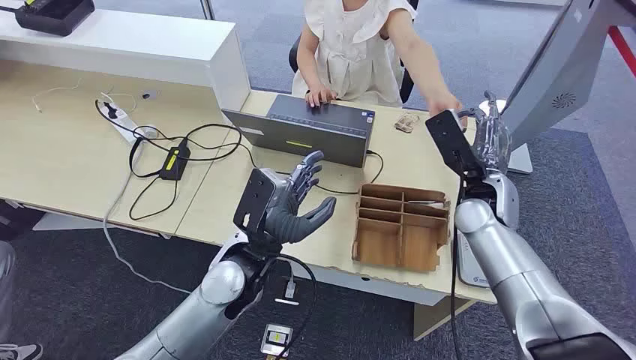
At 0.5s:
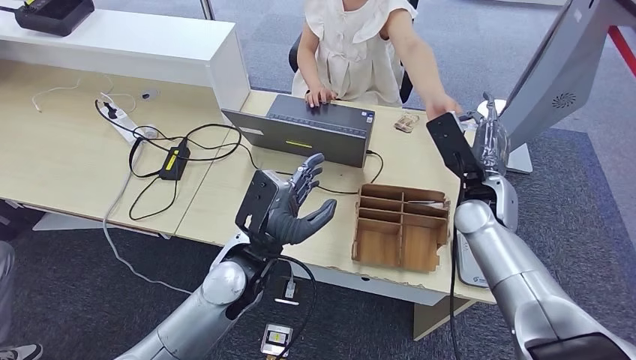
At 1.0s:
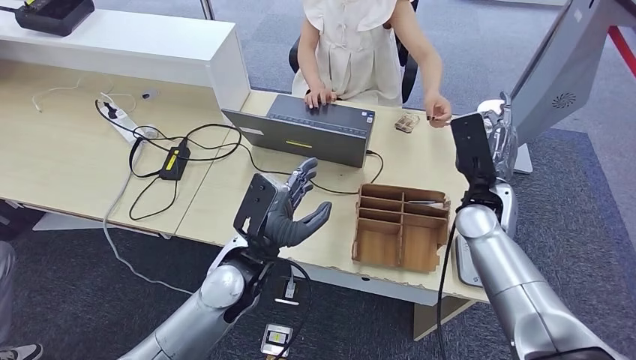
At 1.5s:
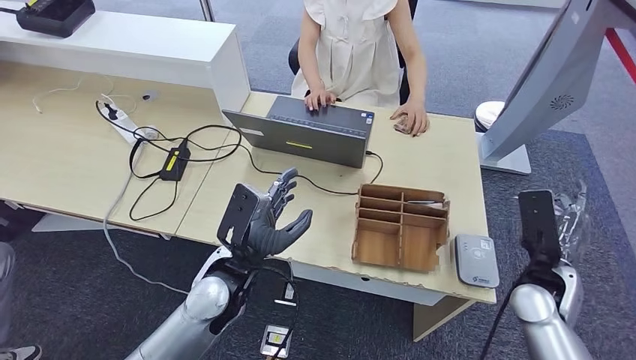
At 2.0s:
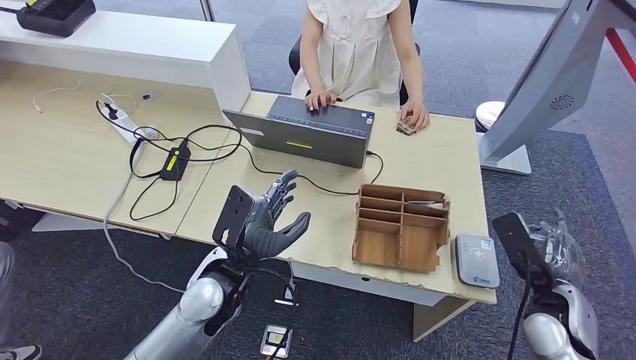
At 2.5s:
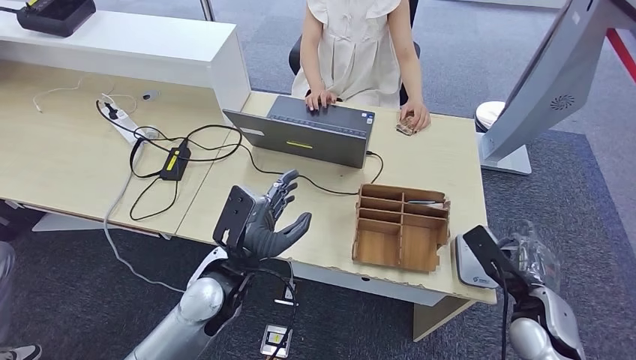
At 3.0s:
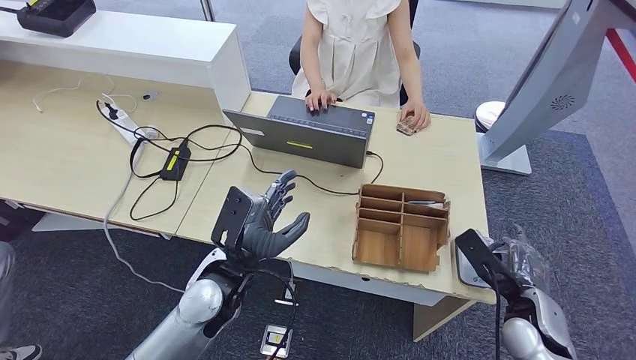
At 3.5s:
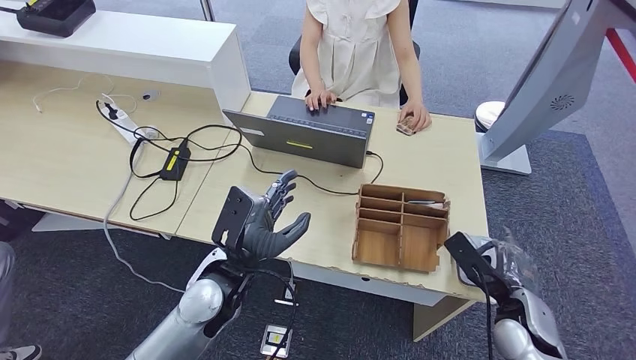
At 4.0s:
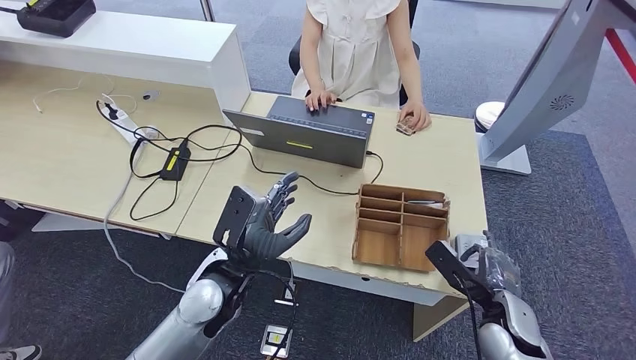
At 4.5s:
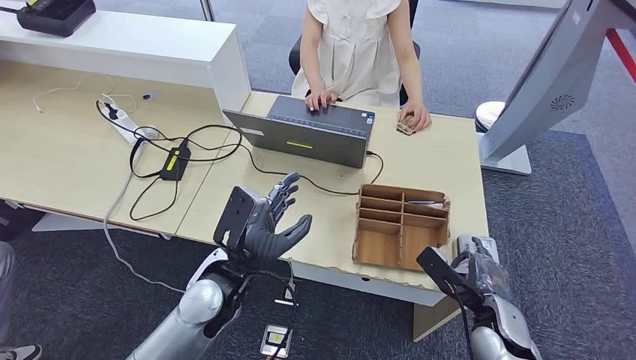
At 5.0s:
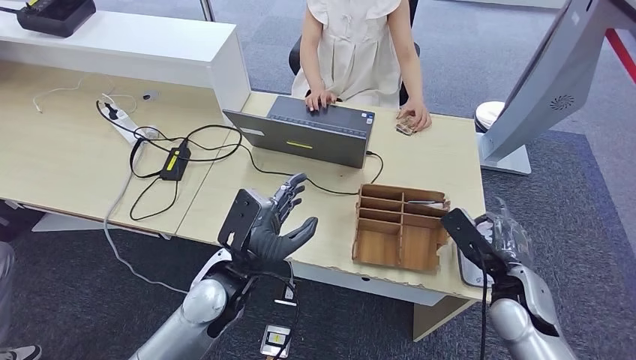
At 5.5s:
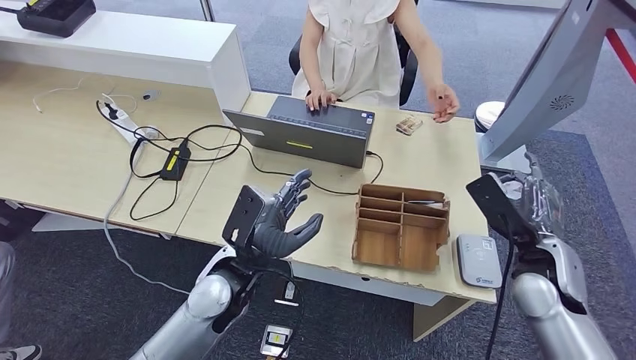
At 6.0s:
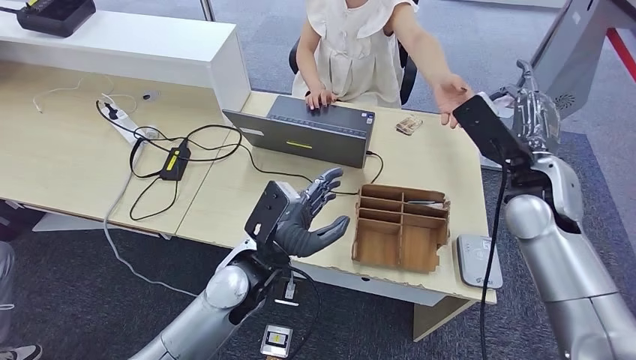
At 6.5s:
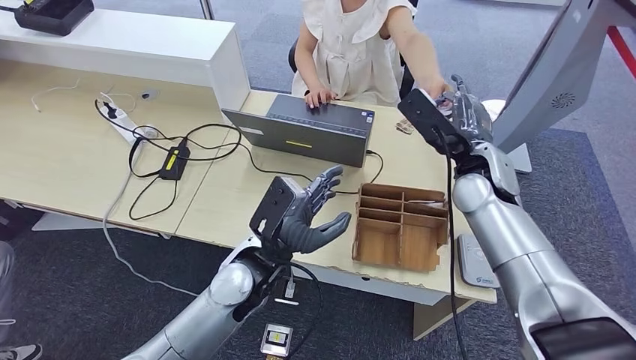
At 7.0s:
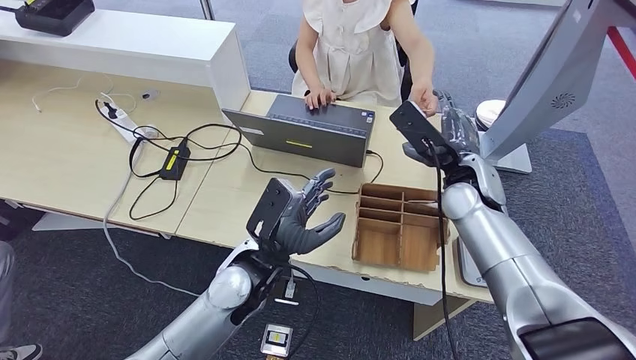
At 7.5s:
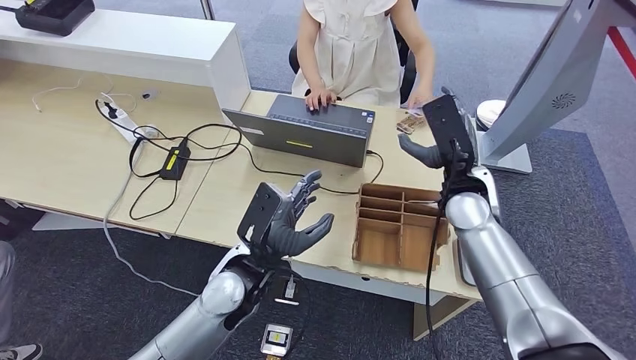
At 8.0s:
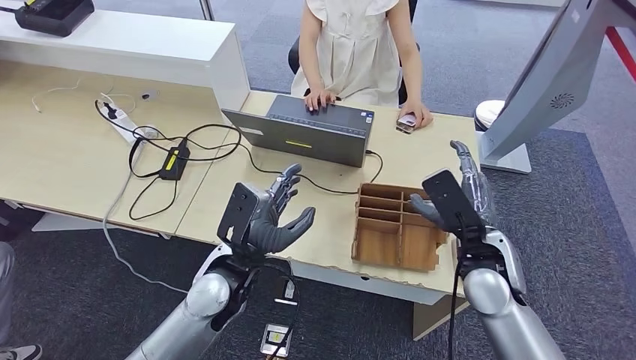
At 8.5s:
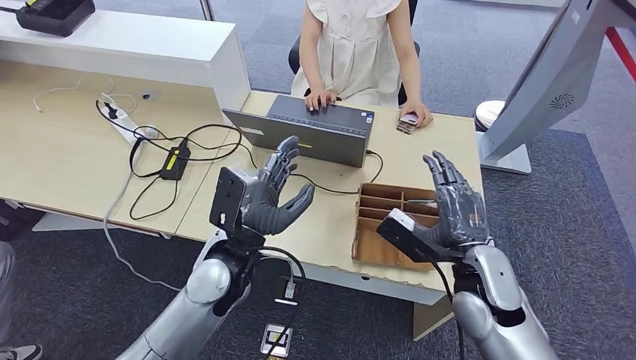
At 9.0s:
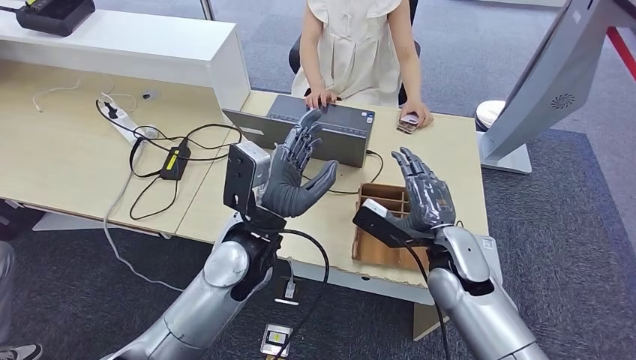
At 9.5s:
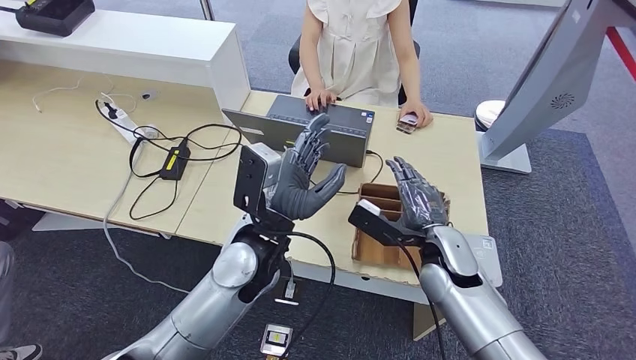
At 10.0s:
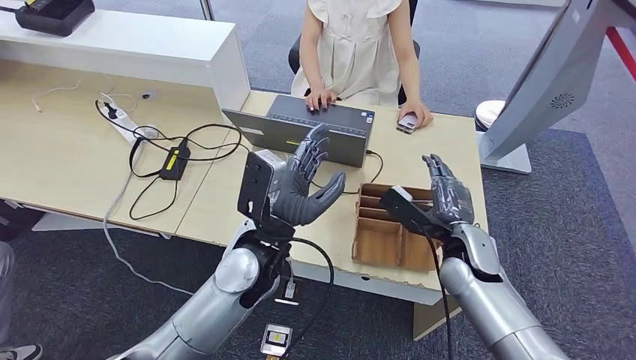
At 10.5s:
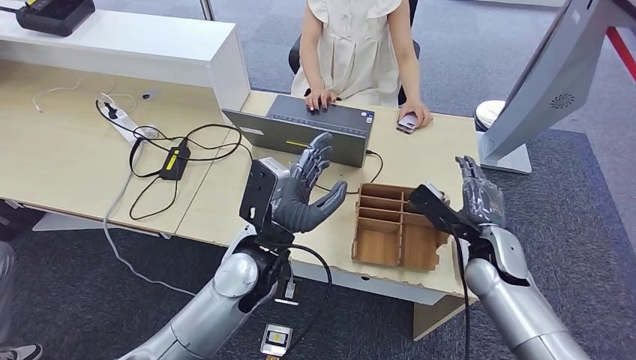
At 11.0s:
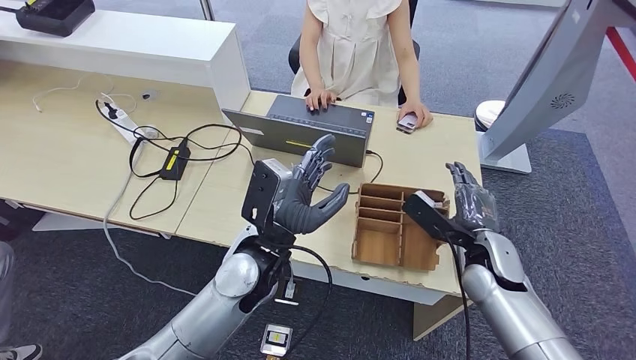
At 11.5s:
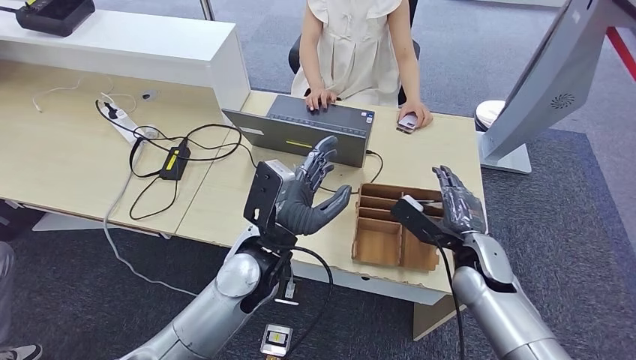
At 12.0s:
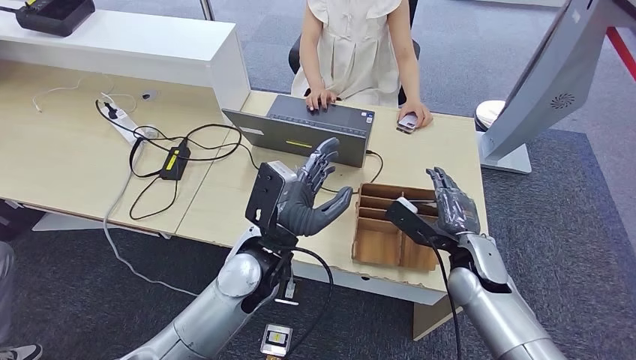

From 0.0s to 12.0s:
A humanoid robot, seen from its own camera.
Step, from 0.0s to 1.0s: Take the ID card from the person's hand.
Step, from 1.5s to 5.0s: Place the ID card on the card reader.
Step, from 5.5s to 8.0s: Hand the ID card to the person.
From 2.0s to 4.0s: The right hand shifts about 5 cm downward and to the left.
From 8.0s to 10.0s: The right hand moves roughly 5 cm; the left hand moves roughly 5 cm.
From 10.0s to 12.0s: The hands move only a little.

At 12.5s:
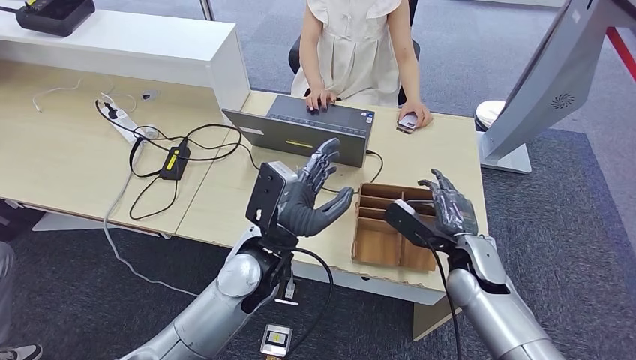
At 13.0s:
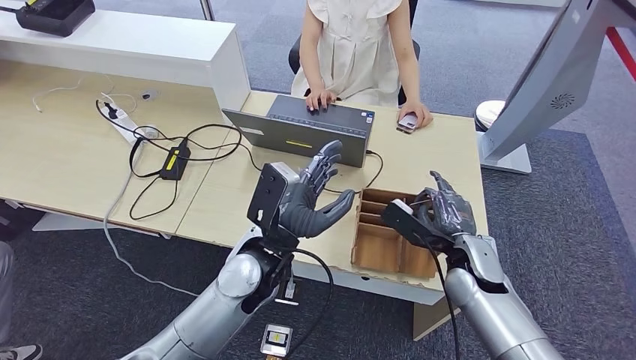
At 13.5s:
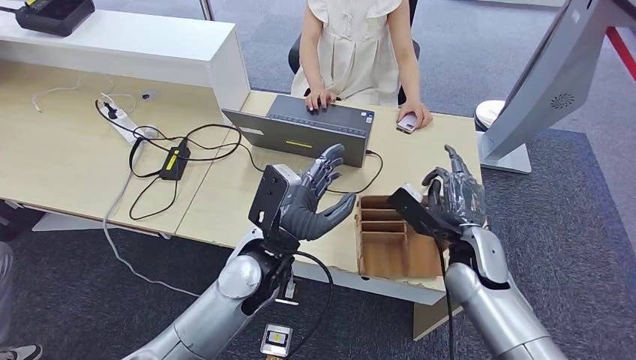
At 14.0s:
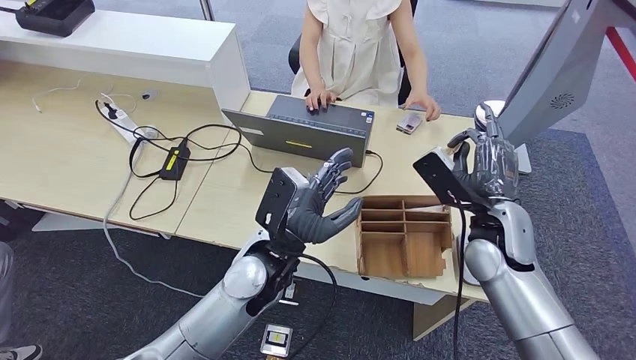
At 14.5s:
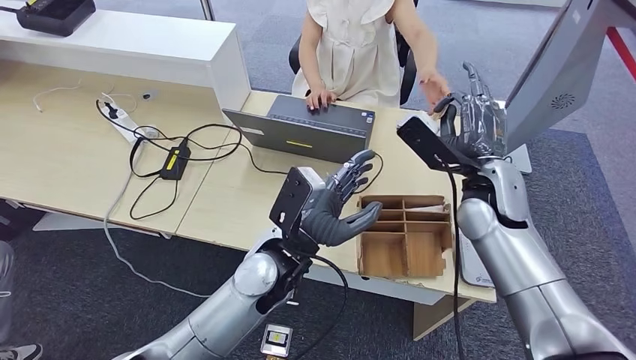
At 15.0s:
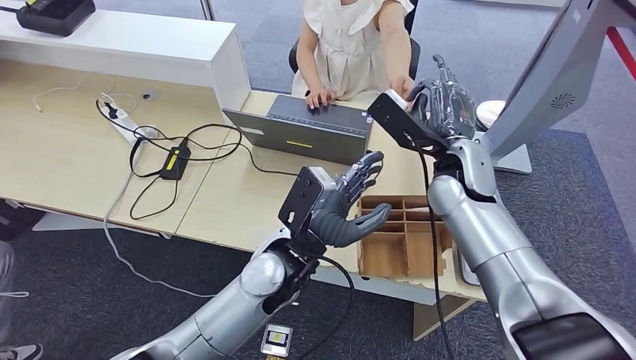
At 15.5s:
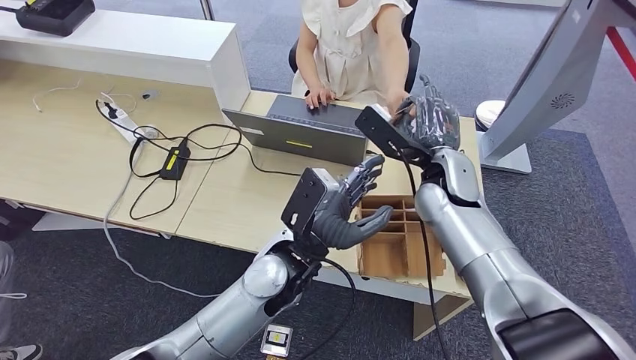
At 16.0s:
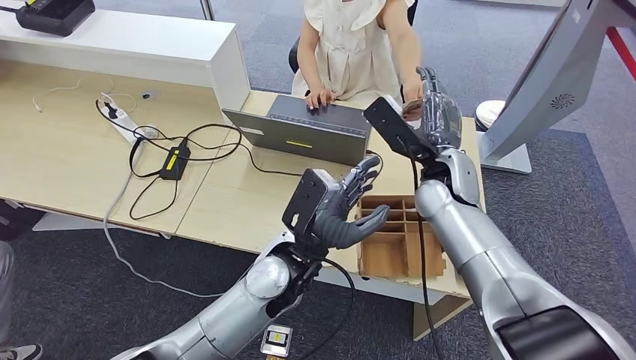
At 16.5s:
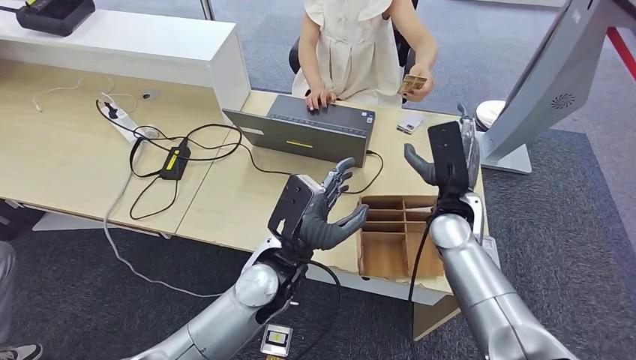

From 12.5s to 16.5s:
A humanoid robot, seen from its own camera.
Step, from 13.0s to 14.0s: Pick up the room key from the key card box.
Step, from 14.5s to 16.5s: Hand the room key to the person.
From 14.5s to 16.5s: The right hand goes about 5 cm downward.
